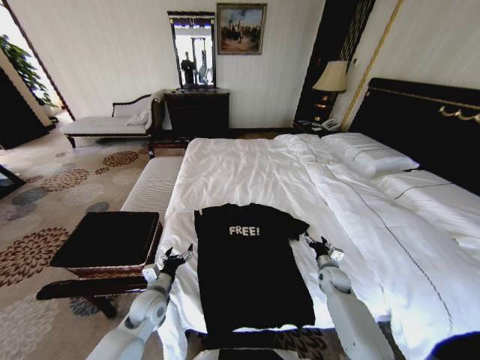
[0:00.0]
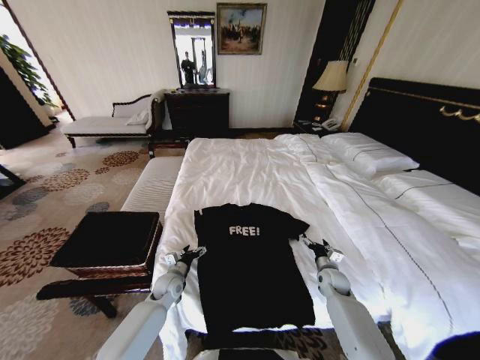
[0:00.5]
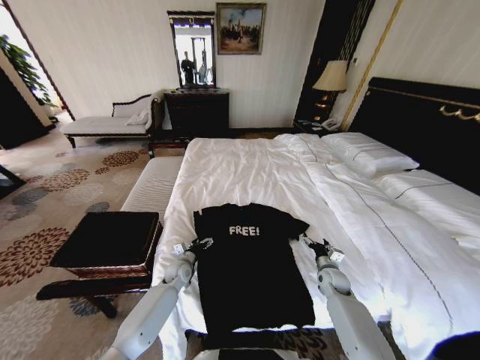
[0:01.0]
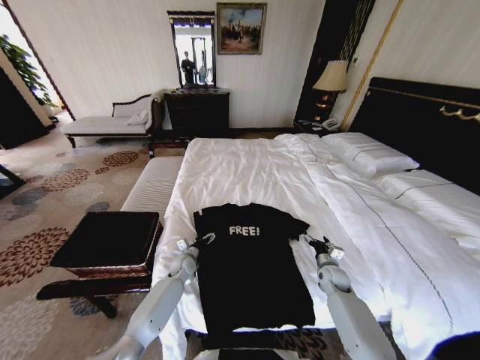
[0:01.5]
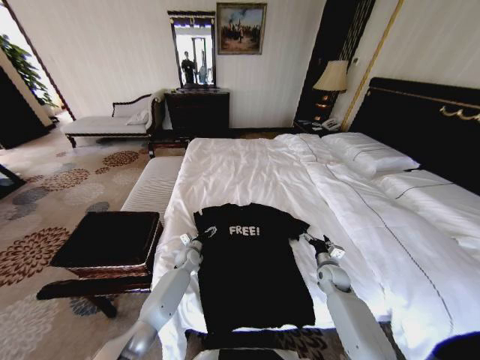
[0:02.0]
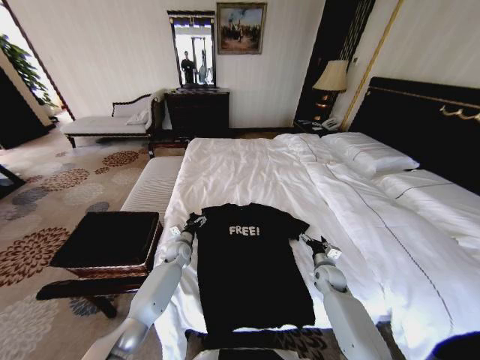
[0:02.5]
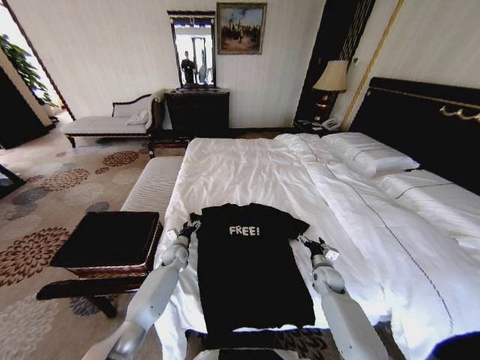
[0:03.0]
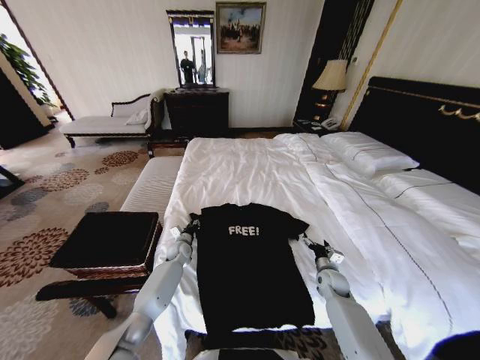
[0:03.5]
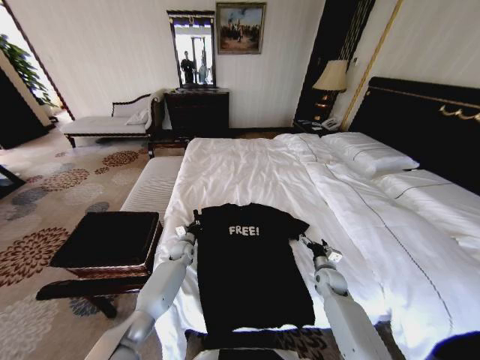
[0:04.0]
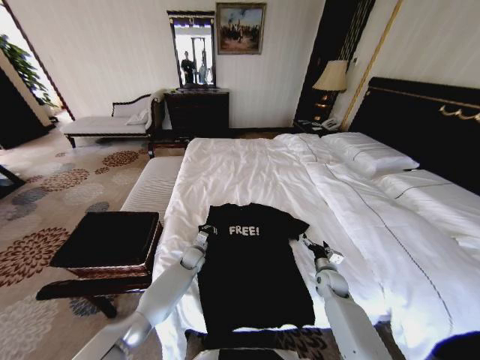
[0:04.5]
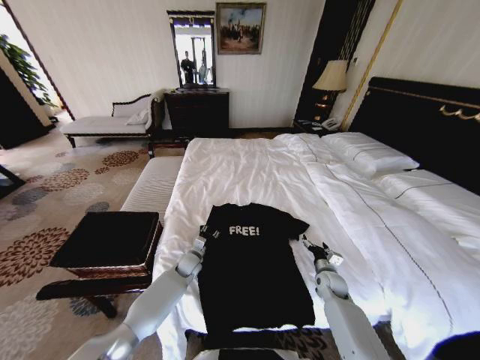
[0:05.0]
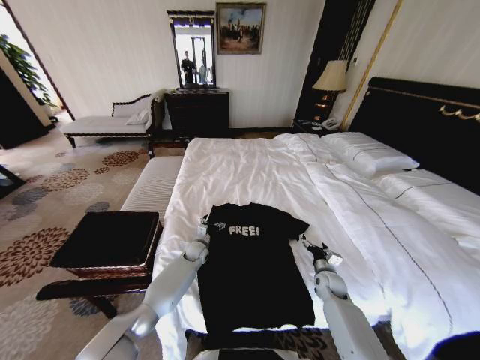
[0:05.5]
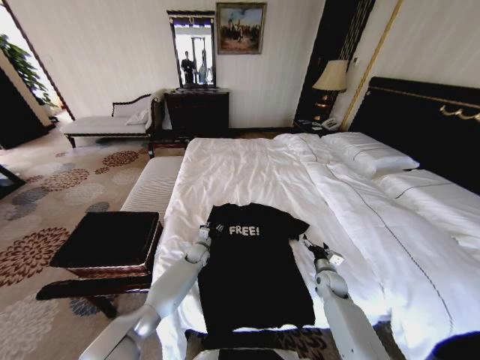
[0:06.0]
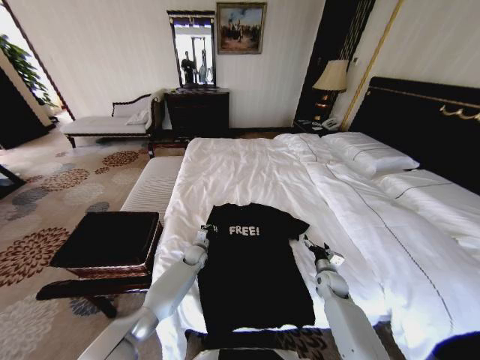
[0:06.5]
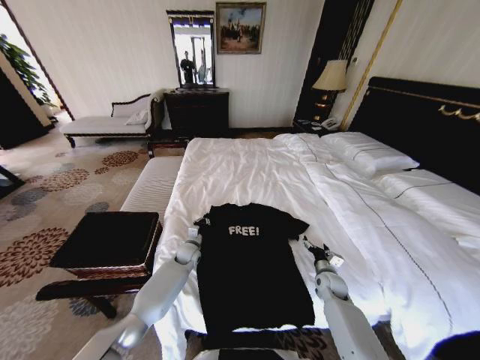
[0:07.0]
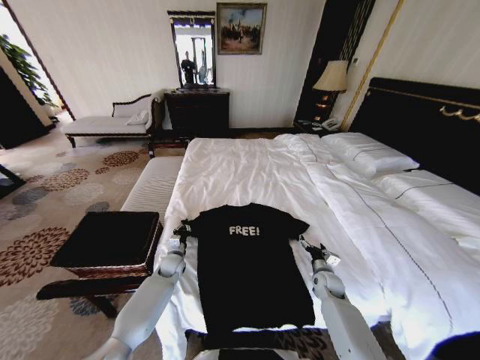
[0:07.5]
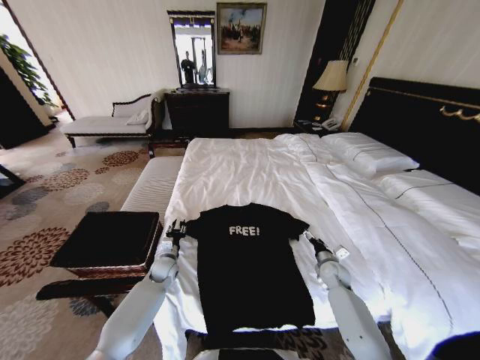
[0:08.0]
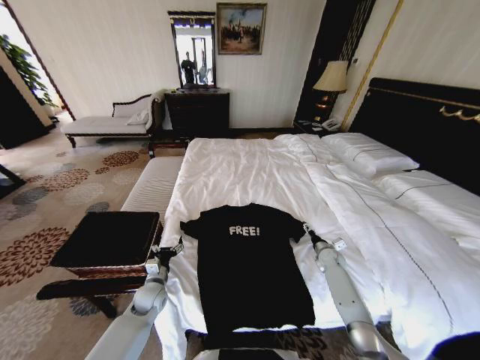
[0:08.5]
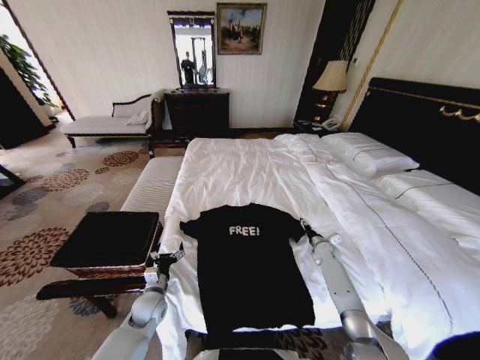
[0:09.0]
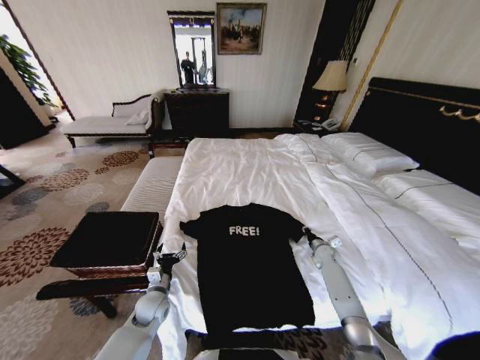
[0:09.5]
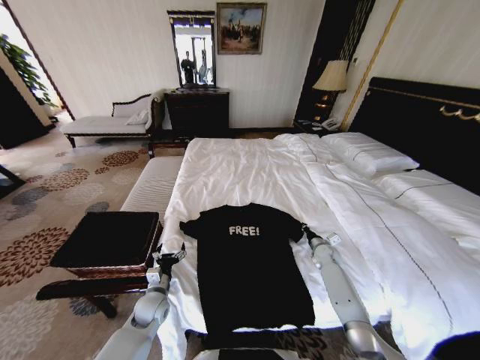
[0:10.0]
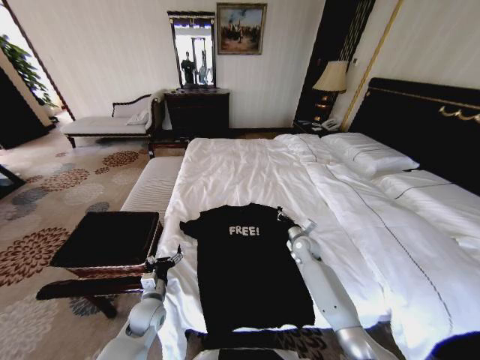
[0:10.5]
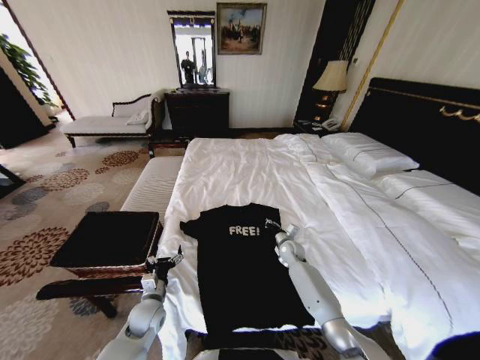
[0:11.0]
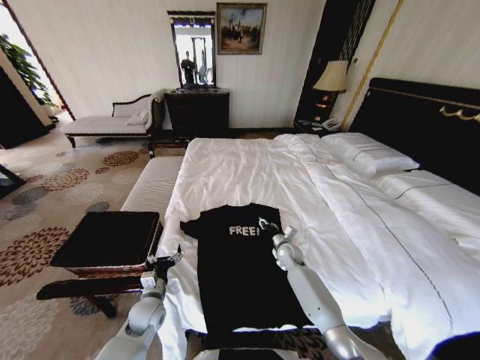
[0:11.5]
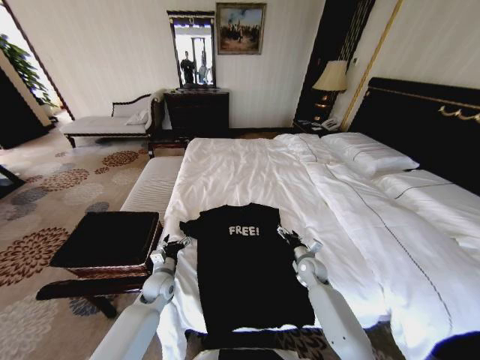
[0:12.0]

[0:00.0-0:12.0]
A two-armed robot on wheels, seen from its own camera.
Task of the whole recording: Fold the clothes on the bed and place them into the basket.
0:00.0 to 0:02.0: The left gripper shifts approximately 20 cm forward and downward.
0:02.0 to 0:04.0: The left gripper closes.
0:04.0 to 0:06.0: The left gripper goes about 5 cm to the right, and opens its fingers.
0:06.0 to 0:08.0: The left gripper goes roughly 15 cm to the left and backward, and closes, then reopens.
0:08.0 to 0:10.0: The left gripper shifts about 10 cm backward, and opens up; the right gripper shifts approximately 5 cm forward, and closes its fingers.
0:10.0 to 0:12.0: The left gripper is displaced forward by about 5 cm. The right gripper moves to the left and backward, approximately 10 cm, and opens.

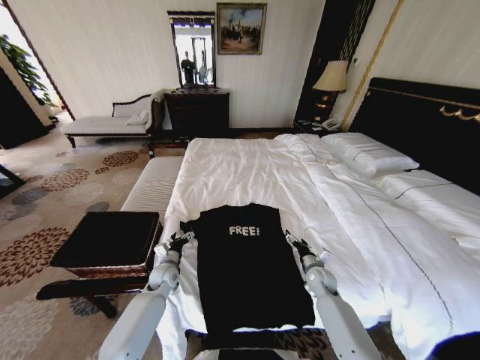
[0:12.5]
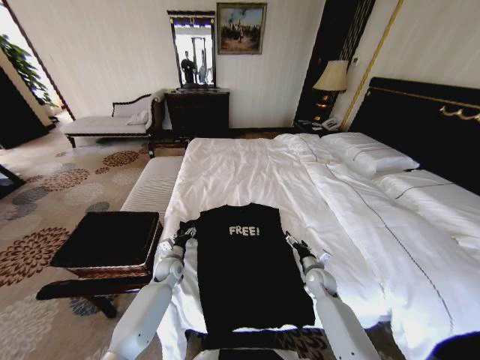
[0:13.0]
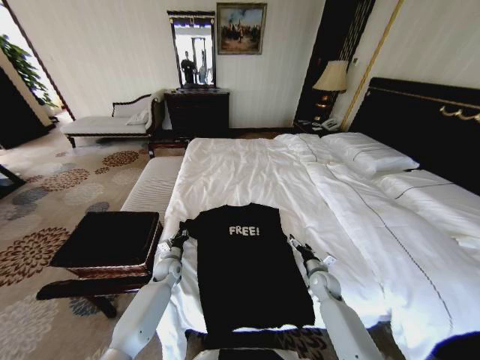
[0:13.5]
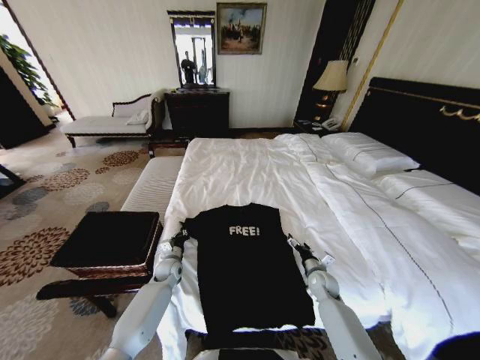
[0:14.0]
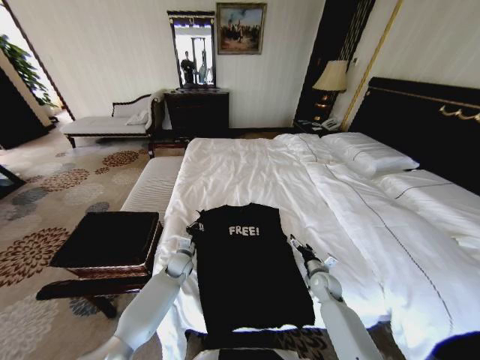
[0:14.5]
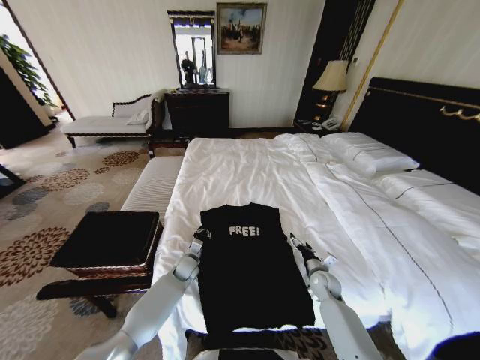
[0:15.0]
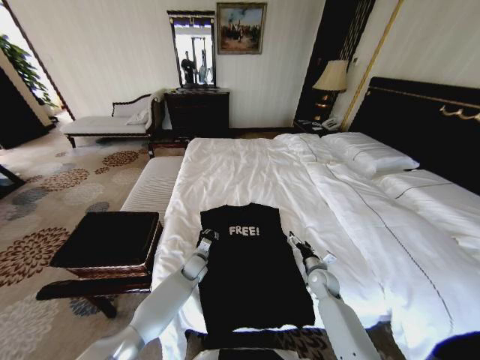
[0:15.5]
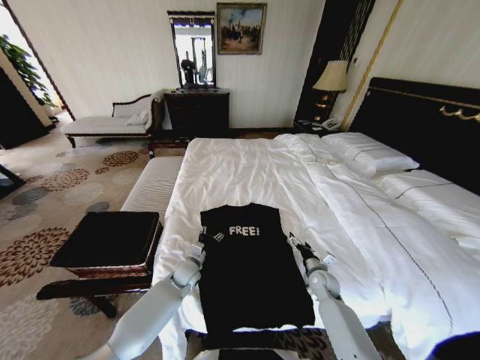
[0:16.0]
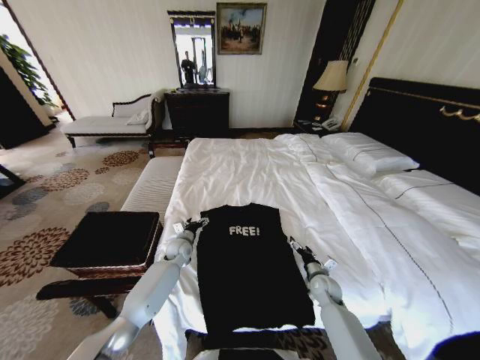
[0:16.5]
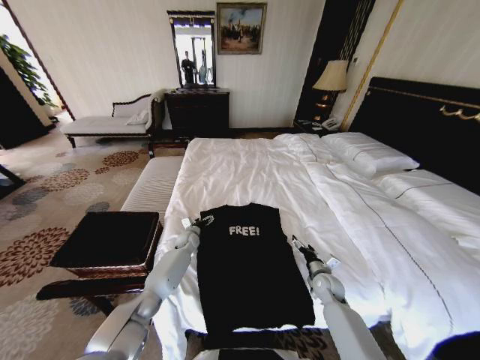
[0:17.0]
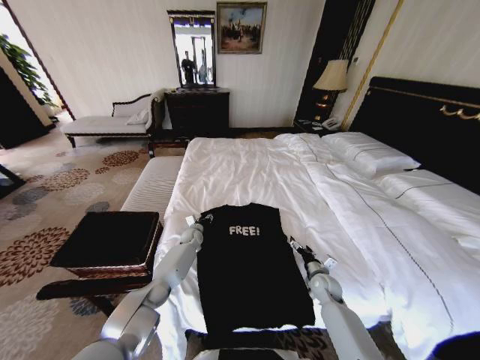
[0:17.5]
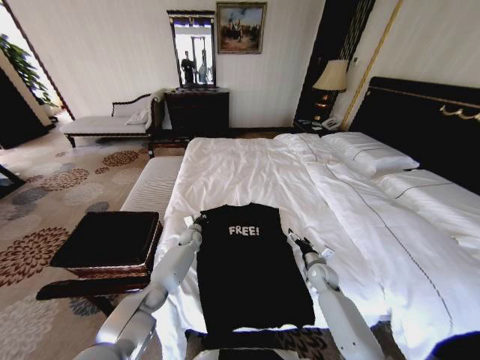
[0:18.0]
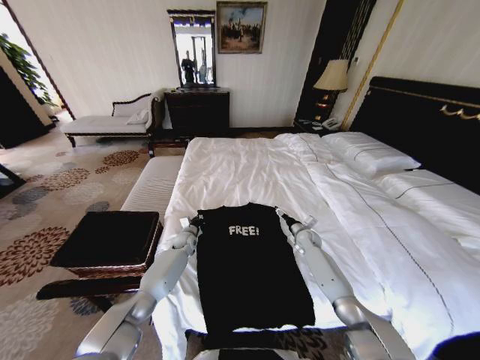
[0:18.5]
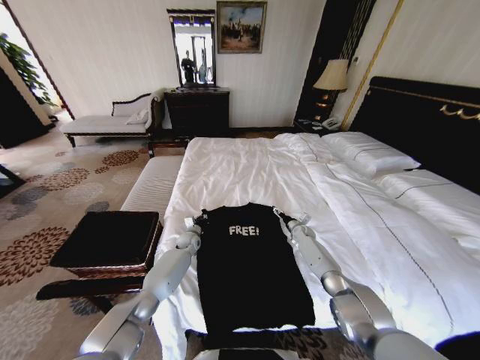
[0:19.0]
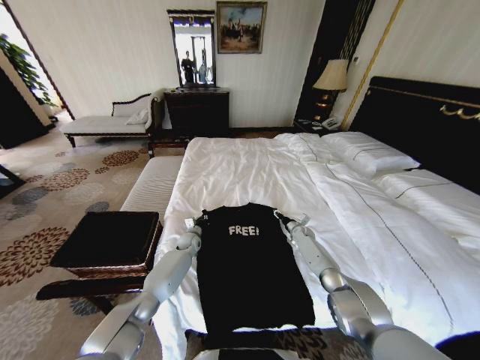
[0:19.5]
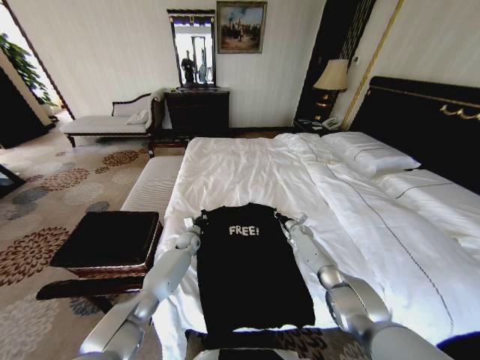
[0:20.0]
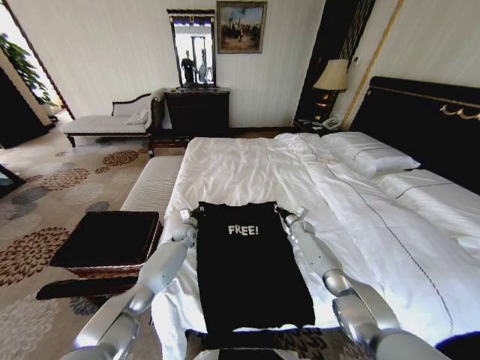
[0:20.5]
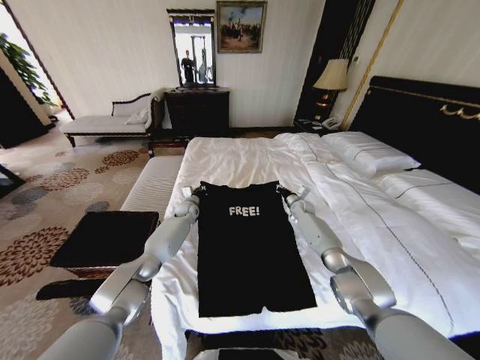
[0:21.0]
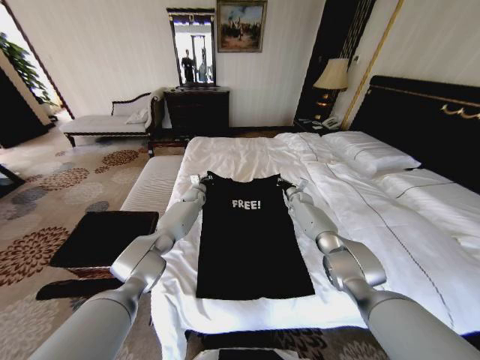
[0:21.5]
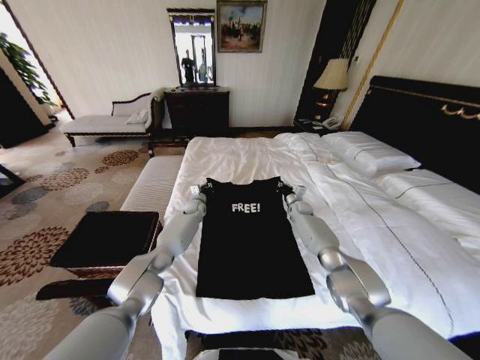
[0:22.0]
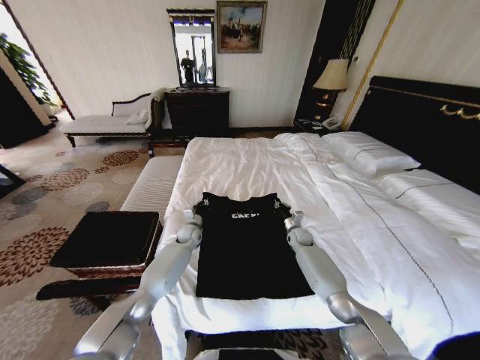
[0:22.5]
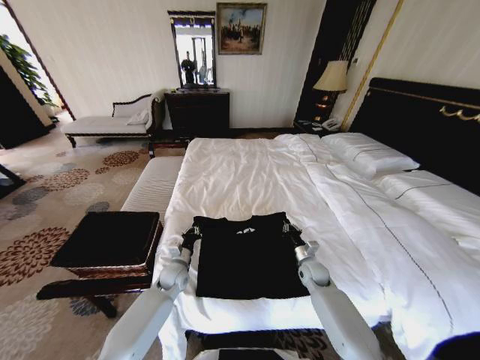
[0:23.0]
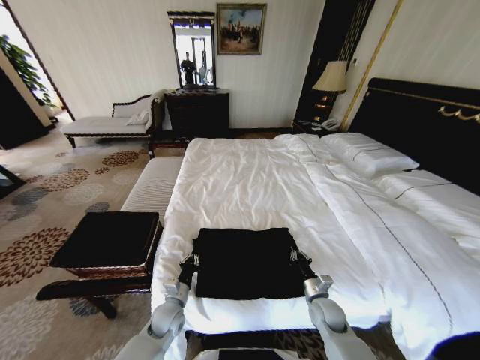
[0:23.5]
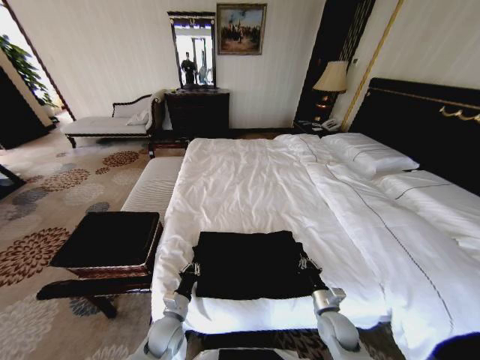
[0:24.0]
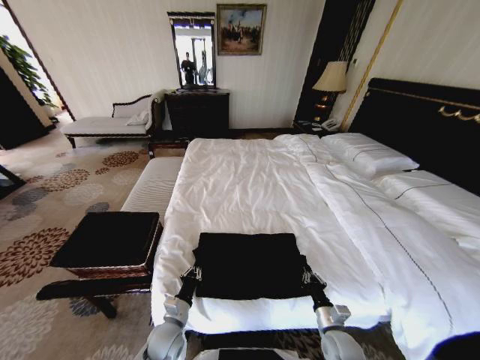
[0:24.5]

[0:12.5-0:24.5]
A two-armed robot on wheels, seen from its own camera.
Task of the whole recording: Fold the clothes on the bed and place them into the basket.
0:12.5 to 0:14.5: The left gripper ends up roughly 5 cm from where it was, and closes up.
0:14.5 to 0:16.5: The left gripper shifts by about 5 cm, and opens its fingers.
0:16.5 to 0:18.5: The right gripper travels forward by some 20 cm; the left gripper heads forward, covering roughly 5 cm, and closes.
0:18.5 to 0:20.5: The right gripper is displaced forward by approximately 5 cm, and closes.
0:20.5 to 0:22.5: The right gripper heads backward, covering approximately 5 cm, while the left gripper goes forward and returns, approximately 15 cm each way.
0:22.5 to 0:24.5: Both grippers travel together backward, about 35 cm.

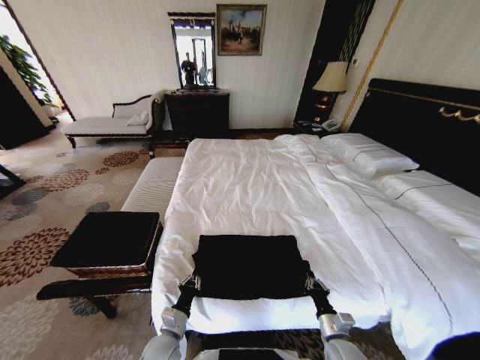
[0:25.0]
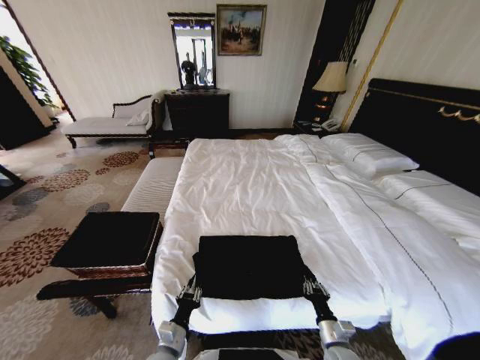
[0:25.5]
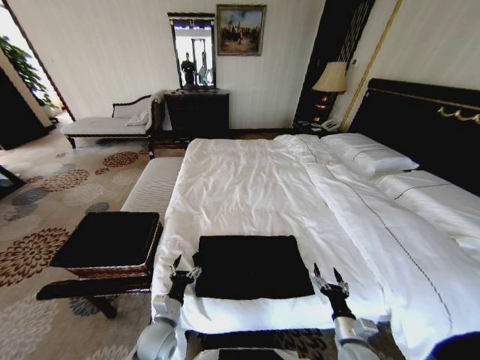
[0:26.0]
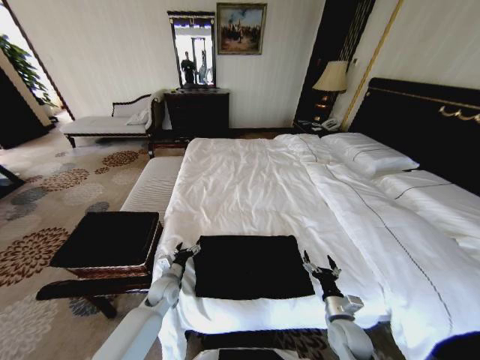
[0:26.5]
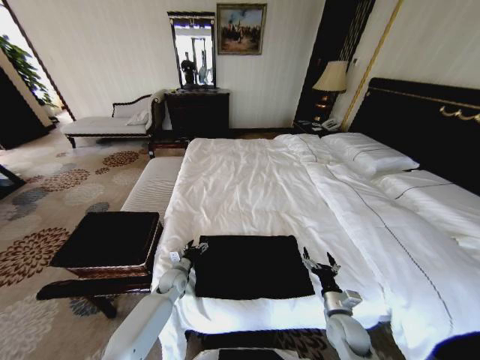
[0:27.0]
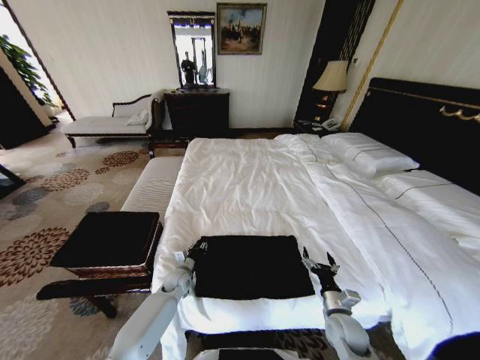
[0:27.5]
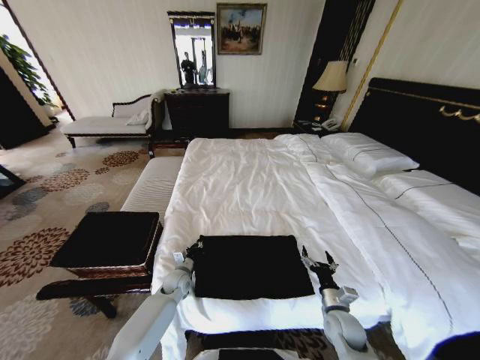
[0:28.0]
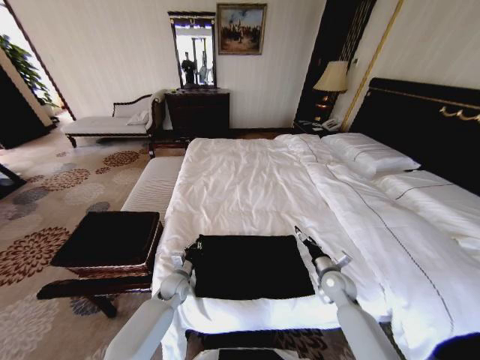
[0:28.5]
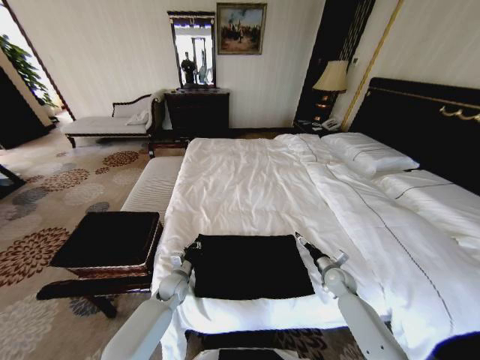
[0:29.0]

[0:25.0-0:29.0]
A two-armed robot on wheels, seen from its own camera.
Task of the whole recording: Fold the clothes on the bed and place them into the basket.
0:25.0 to 0:27.0: The left gripper shifts some 20 cm forward, and opens its fingers; the right gripper shifts roughly 5 cm forward, and opens its fingers.
0:27.0 to 0:29.0: The right gripper travels forward and to the right by about 15 cm; the left gripper closes its fingers.
